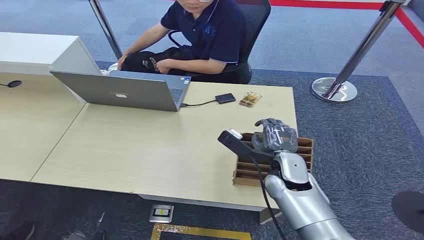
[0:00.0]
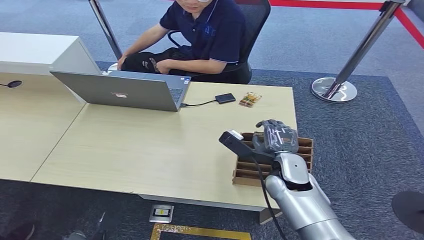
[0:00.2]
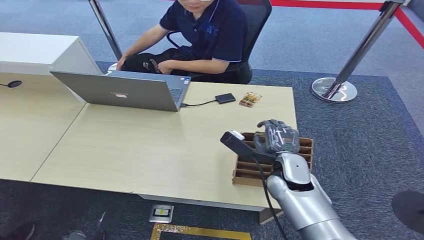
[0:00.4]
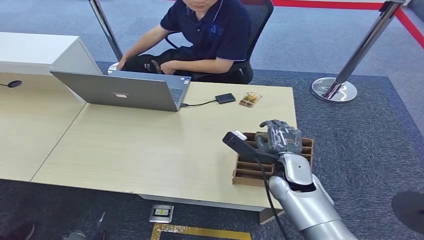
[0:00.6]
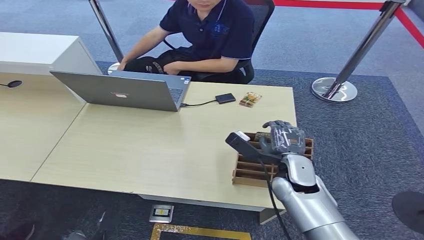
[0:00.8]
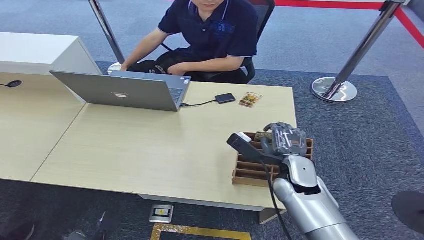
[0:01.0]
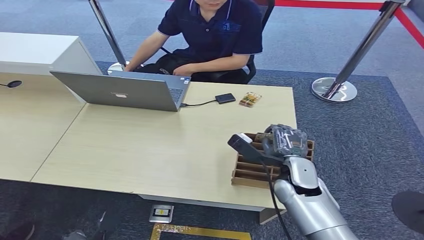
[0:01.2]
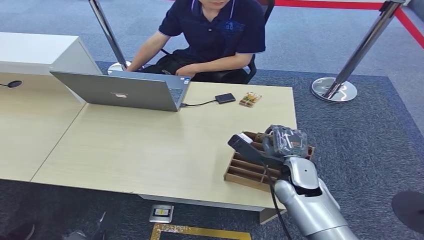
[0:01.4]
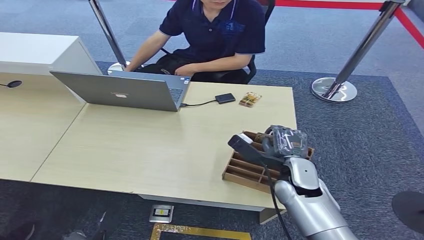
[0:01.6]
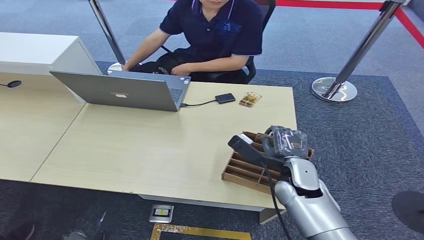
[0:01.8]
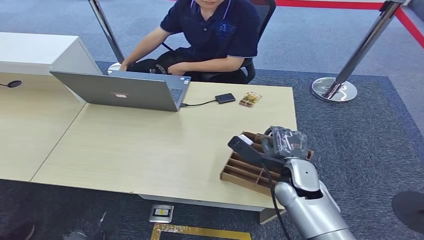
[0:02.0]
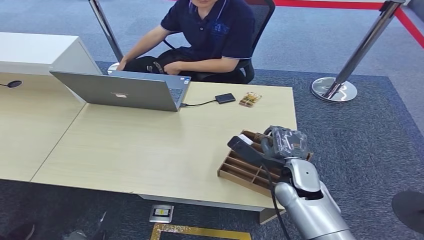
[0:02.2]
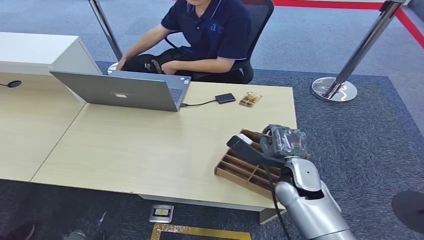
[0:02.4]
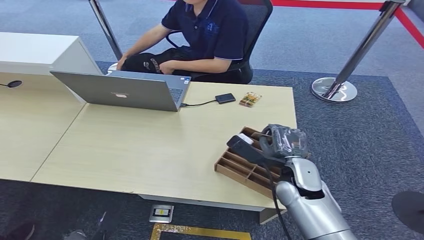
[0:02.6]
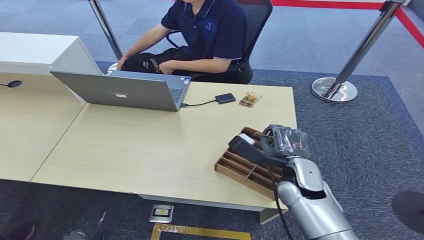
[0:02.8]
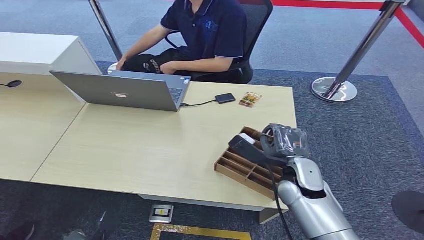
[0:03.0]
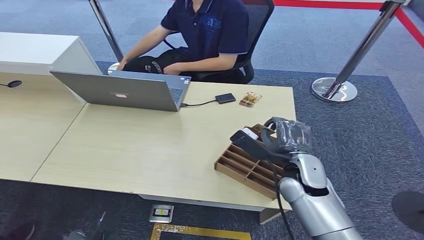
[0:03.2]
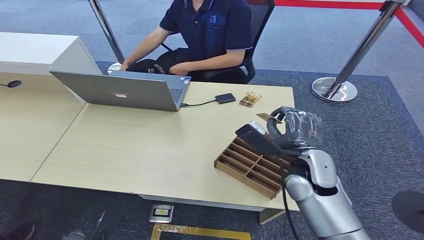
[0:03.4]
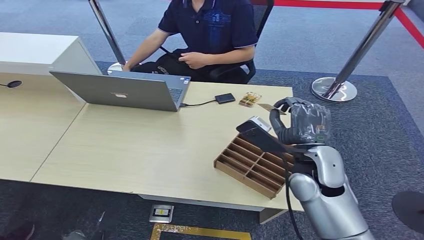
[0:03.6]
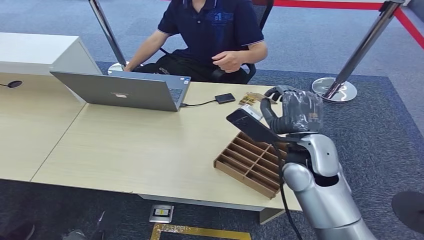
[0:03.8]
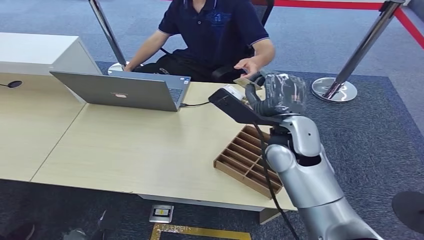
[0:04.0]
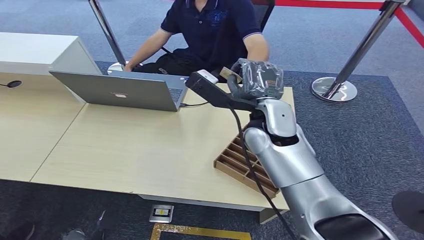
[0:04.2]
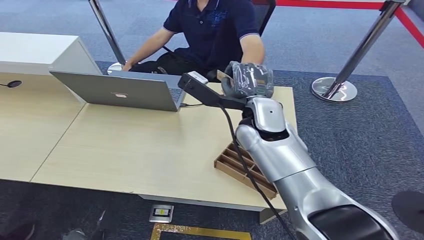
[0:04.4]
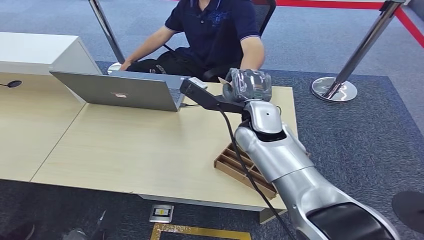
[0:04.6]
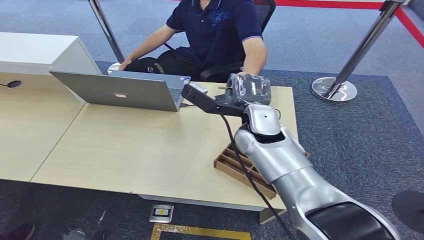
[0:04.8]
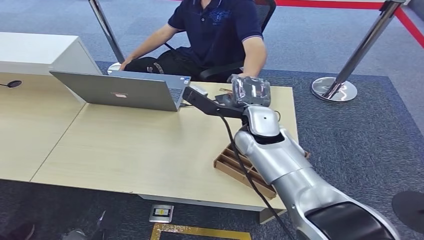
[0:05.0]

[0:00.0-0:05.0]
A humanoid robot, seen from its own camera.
Step, 0:00.0 to 0:03.8: Pick up the room card from the card holder.
Step, 0:04.0 to 0:05.0: Hand the room card to the target.
0:01.6 to 0:03.4: The right hand travels upward by some 5 cm.
0:03.4 to 0:05.0: The right hand shifts roughly 15 cm to the left, forward and upward.
